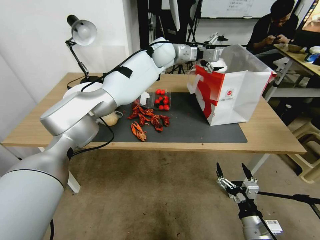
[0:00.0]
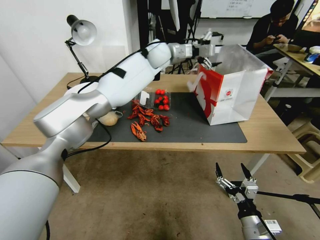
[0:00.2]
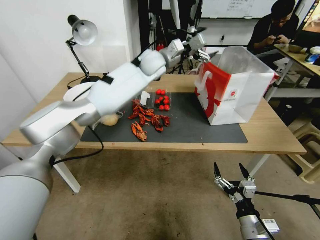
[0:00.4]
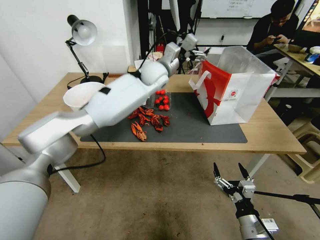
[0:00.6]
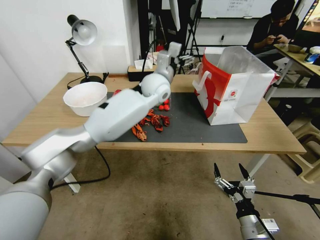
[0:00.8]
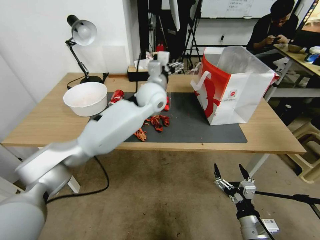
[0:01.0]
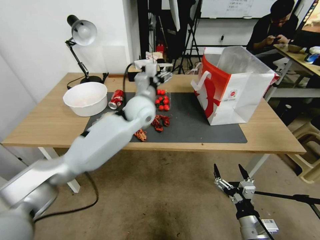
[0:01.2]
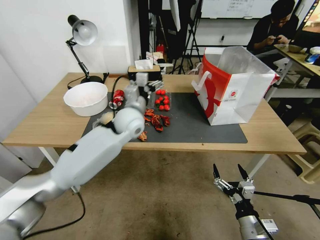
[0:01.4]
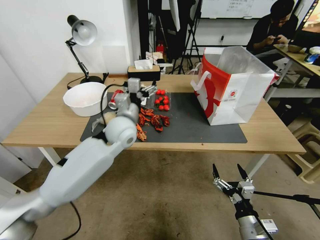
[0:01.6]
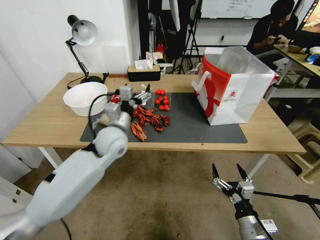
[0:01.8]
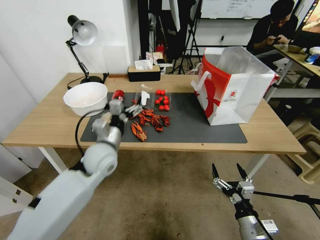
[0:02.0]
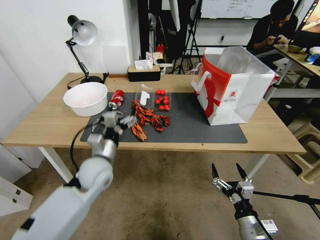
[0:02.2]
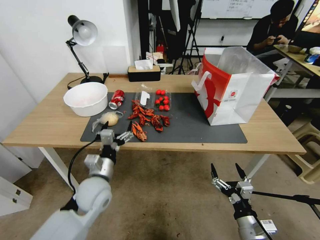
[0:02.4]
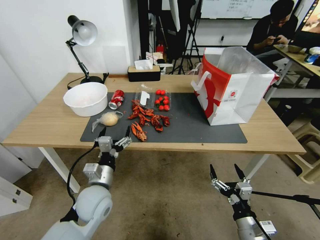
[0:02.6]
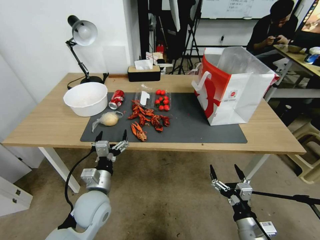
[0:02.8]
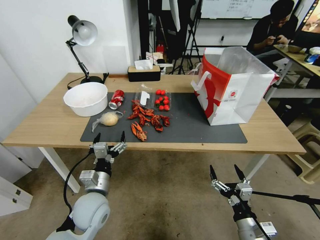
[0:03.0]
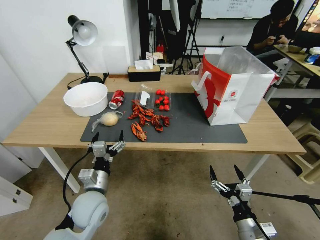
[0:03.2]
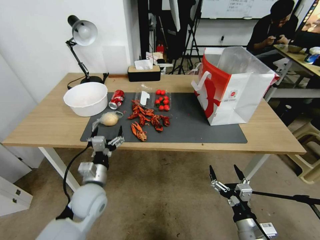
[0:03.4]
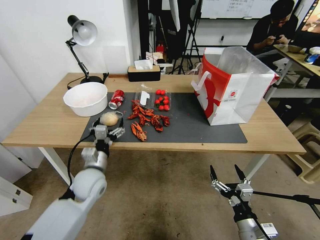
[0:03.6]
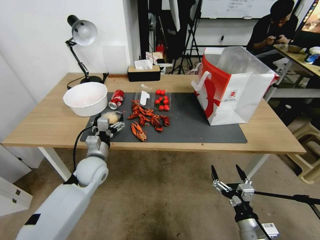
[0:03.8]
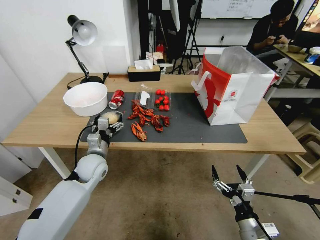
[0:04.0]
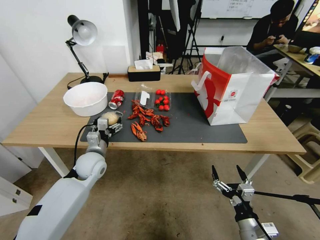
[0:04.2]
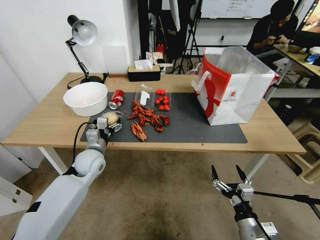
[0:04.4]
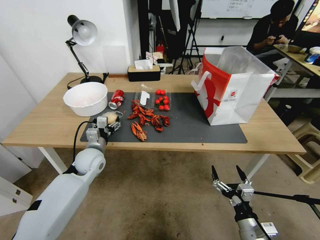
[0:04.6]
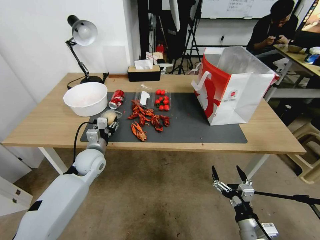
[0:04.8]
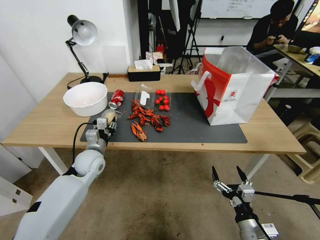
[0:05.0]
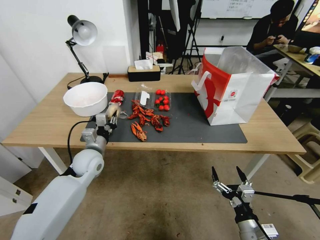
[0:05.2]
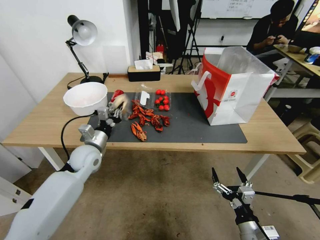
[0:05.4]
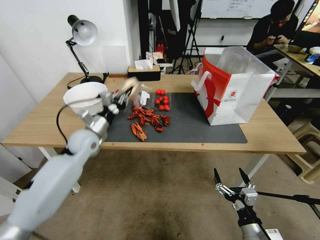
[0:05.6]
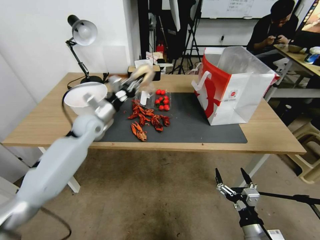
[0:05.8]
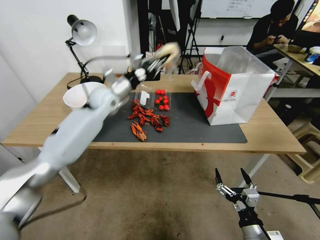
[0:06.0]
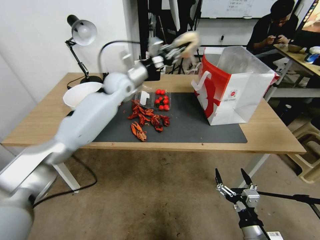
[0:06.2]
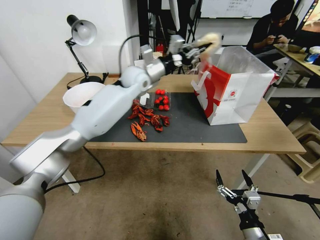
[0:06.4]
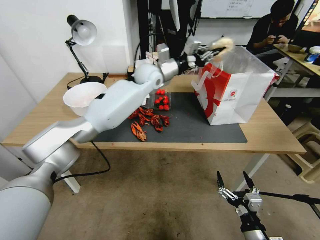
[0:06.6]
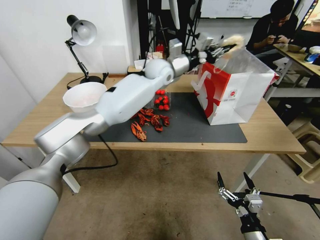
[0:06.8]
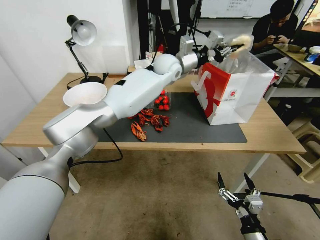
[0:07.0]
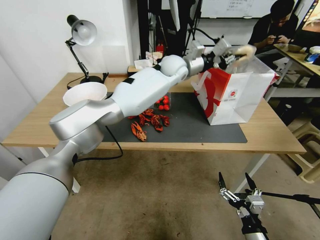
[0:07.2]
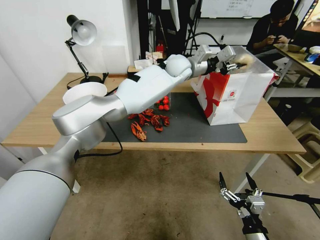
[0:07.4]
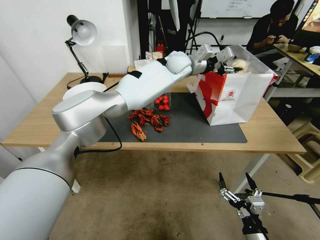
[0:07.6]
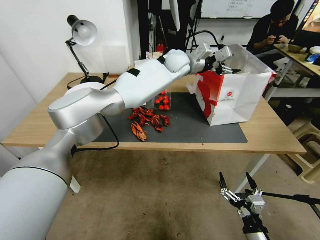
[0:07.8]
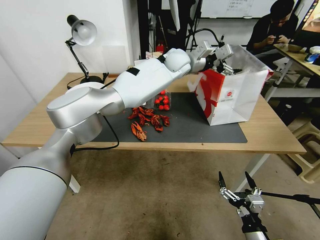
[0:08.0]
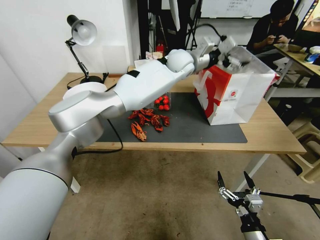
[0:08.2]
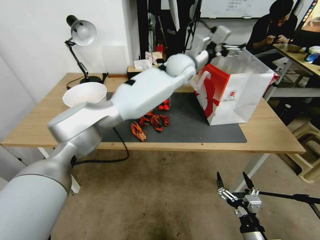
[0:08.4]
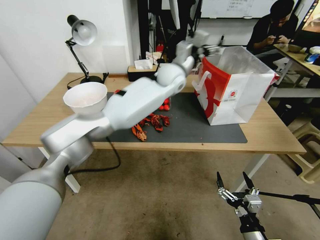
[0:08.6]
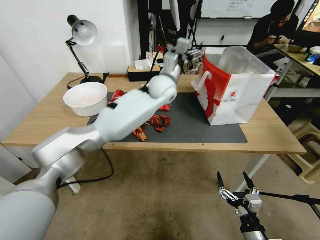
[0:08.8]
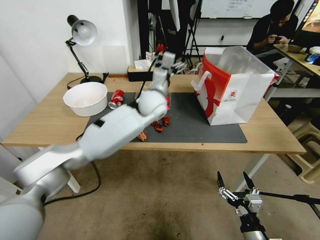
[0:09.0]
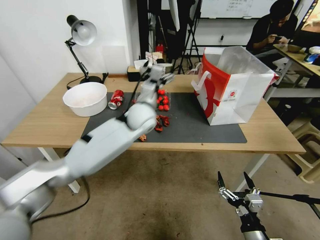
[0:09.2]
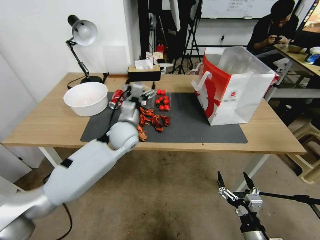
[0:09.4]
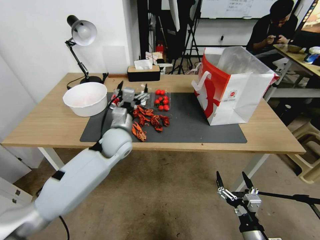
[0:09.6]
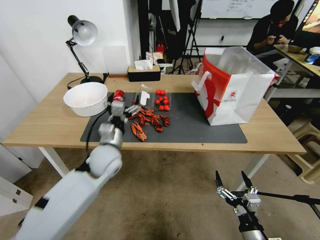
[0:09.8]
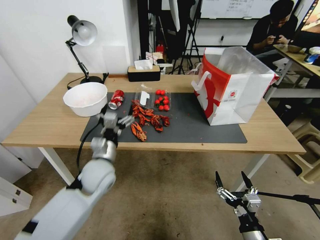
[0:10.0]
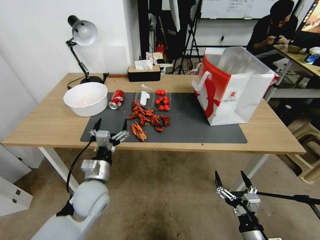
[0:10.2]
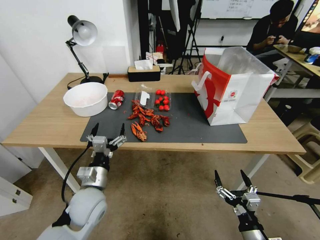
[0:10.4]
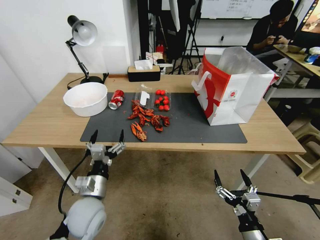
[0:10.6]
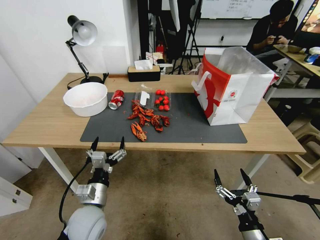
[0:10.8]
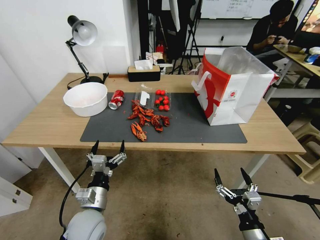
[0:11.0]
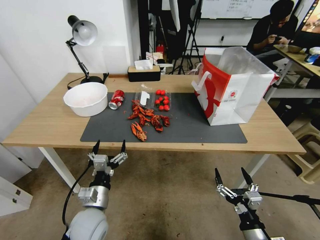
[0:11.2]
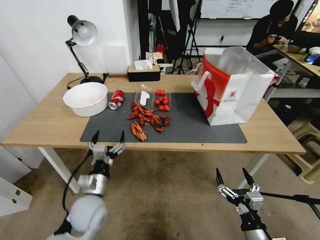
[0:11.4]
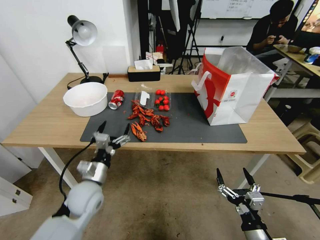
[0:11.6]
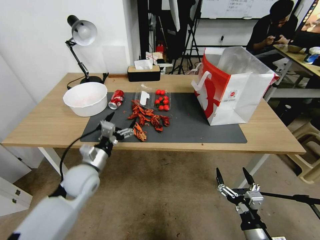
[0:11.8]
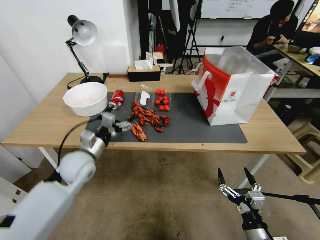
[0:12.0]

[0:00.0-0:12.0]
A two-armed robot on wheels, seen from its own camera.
0:00.0 to 0:01.6: The left gripper travels backward, downward and to the left by about 30 cm.
0:01.6 to 0:03.0: The left gripper goes roughly 25 cm backward, downward and to the left.
0:03.0 to 0:04.4: The left gripper travels forward by roughly 15 cm.
0:04.4 to 0:06.0: The left gripper is displaced upward and forward by about 25 cm, and closes up.
0:06.0 to 0:07.6: The left gripper travels to the right by about 25 cm, and opens up.
0:07.6 to 0:09.0: The left gripper shifts roughly 15 cm backward, to the left and downward, and opens its fingers.
0:09.0 to 0:10.4: The left gripper travels backward, to the left and downward by some 35 cm.
0:10.4 to 0:12.0: The left gripper moves forward and to the left, some 10 cm.

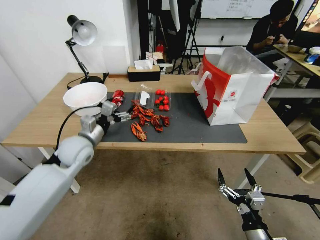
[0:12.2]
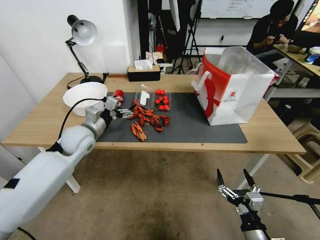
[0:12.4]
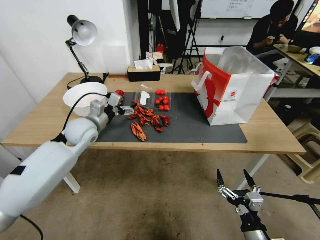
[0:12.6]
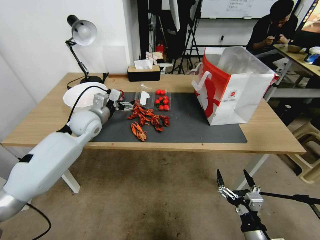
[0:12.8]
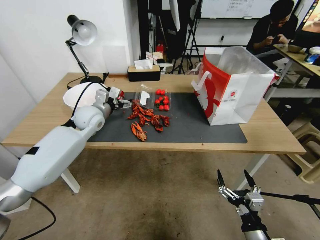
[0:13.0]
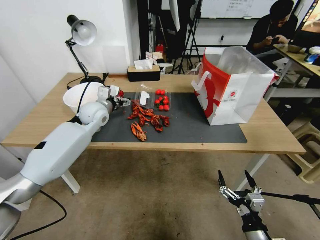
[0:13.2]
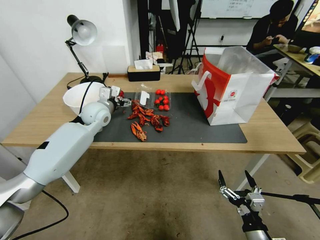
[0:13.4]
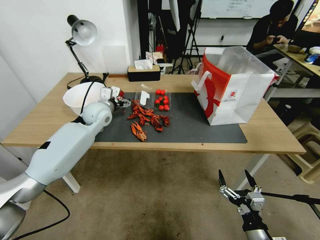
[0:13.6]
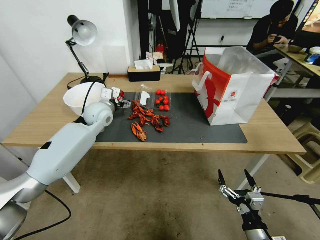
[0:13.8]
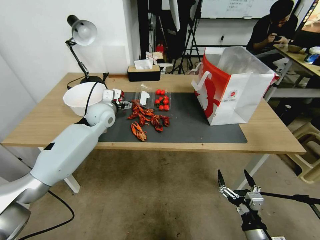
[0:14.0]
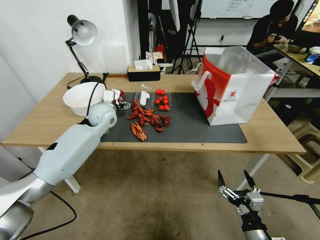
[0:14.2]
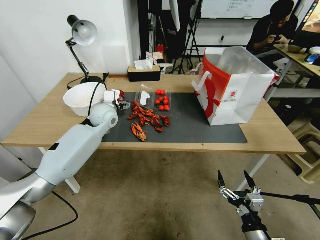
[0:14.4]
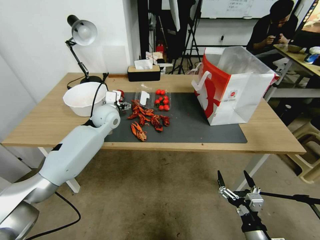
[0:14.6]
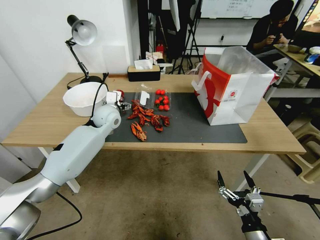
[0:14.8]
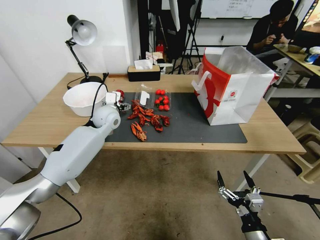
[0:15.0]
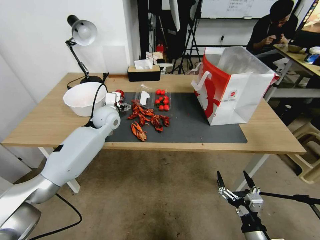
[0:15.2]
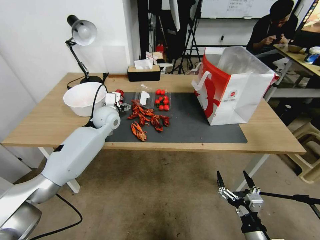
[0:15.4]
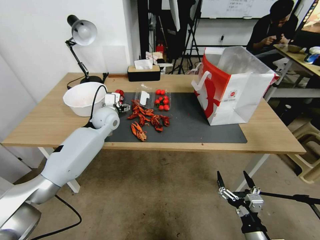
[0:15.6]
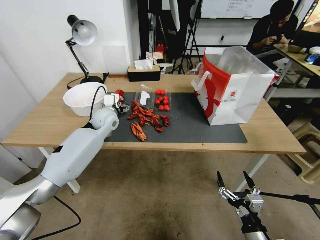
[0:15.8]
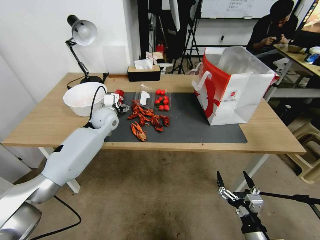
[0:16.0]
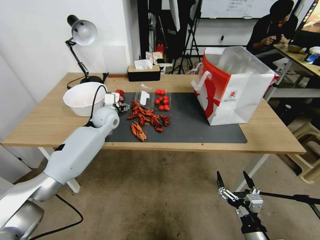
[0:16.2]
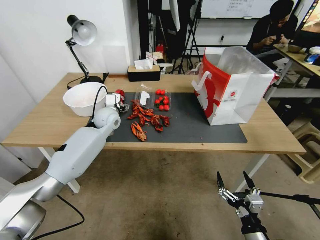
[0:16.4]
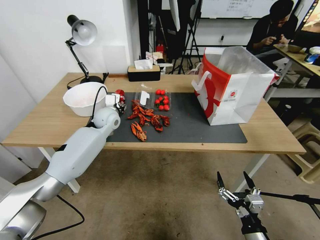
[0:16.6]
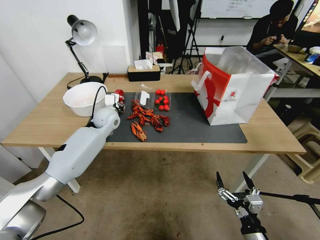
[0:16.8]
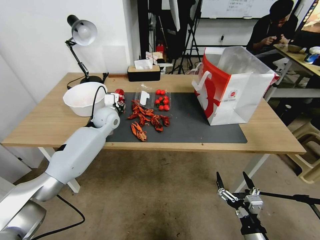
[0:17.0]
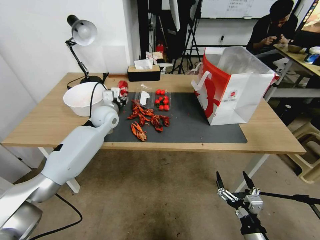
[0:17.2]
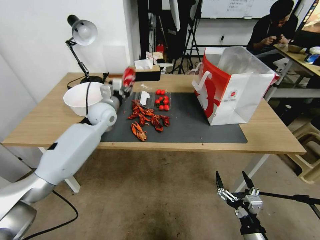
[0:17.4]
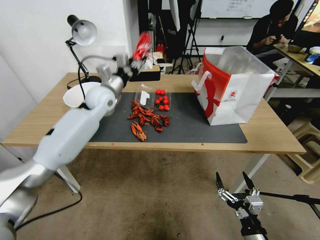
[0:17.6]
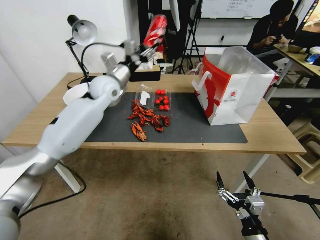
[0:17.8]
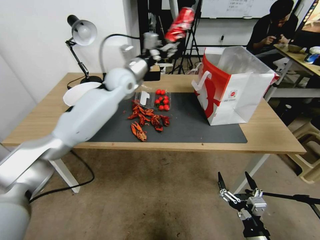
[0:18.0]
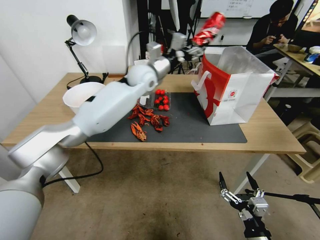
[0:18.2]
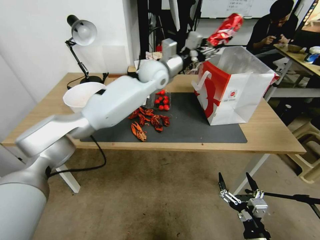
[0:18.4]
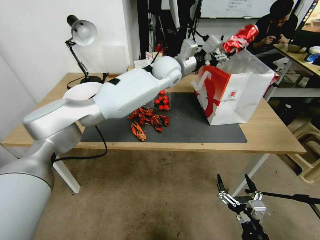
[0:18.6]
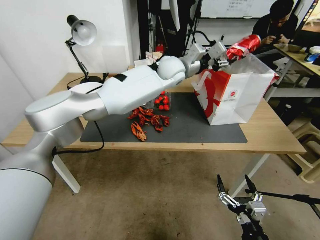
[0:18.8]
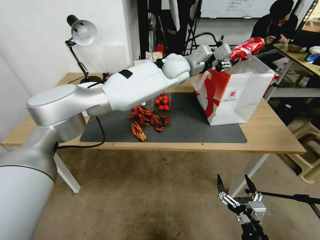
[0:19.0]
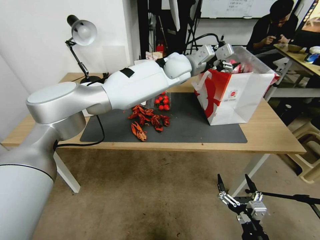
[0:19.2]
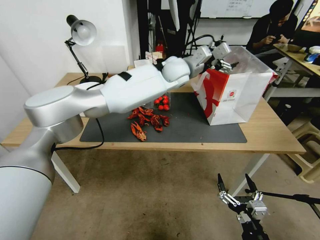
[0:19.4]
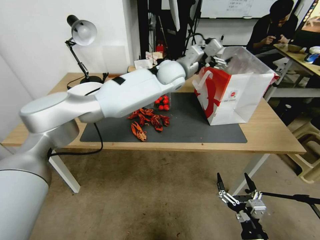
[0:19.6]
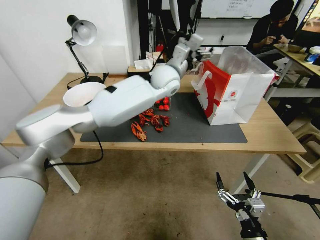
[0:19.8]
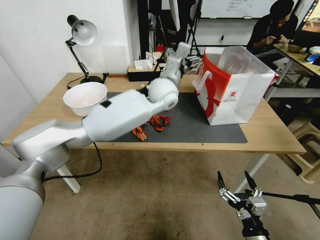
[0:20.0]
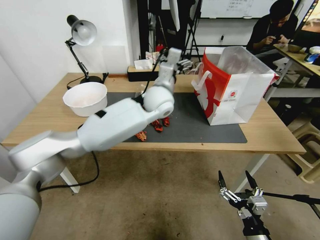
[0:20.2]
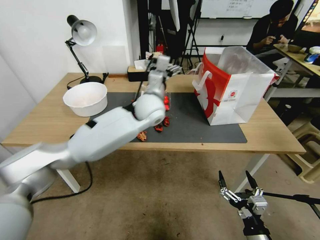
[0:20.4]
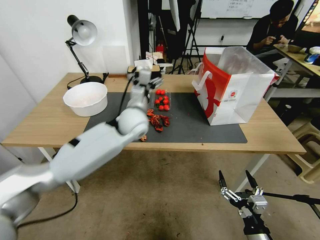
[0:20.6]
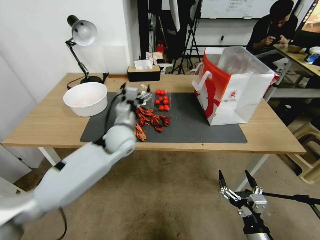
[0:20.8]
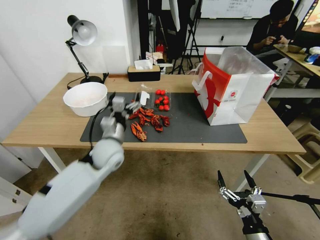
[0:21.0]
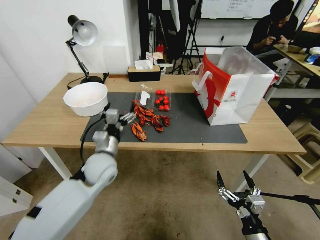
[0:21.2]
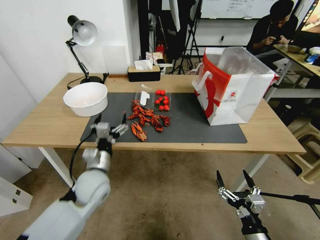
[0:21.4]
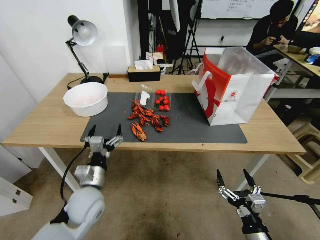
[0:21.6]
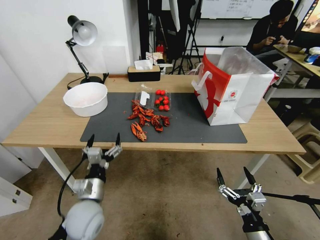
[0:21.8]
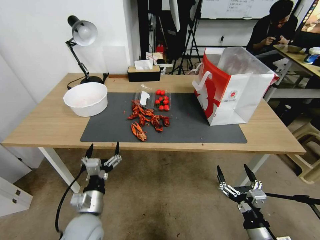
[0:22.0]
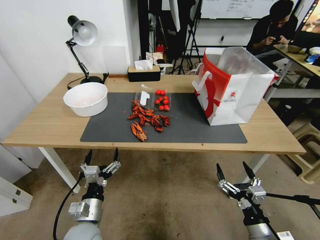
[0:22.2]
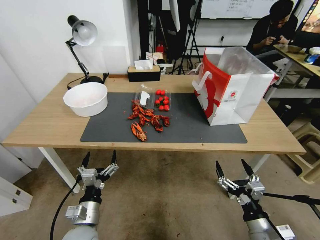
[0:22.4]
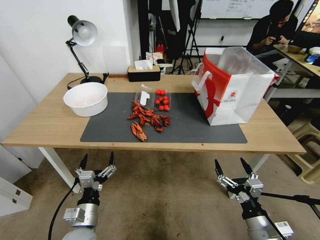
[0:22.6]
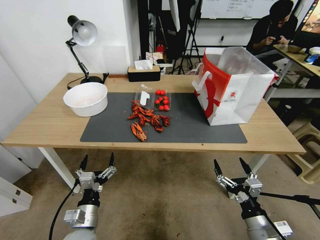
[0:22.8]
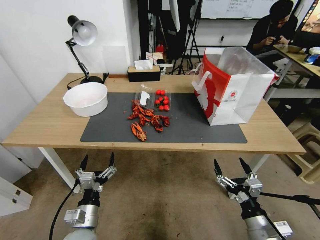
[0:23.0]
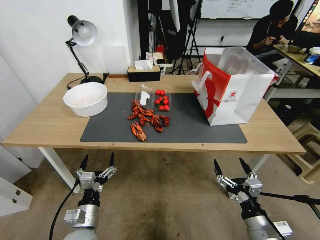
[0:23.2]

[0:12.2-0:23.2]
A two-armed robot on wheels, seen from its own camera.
0:12.2 to 0:13.8: The left gripper is displaced forward by roughly 15 cm.
0:13.8 to 0:15.4: The grippers make only small movements.
0:15.4 to 0:17.0: The left gripper closes.
0:17.0 to 0:18.4: The left gripper shifts approximately 25 cm to the right and upward.
0:18.4 to 0:20.0: The left gripper heads backward, covering some 5 cm, and opens its fingers.
0:20.0 to 0:21.6: The left gripper is displaced backward, to the left and downward by roughly 40 cm.
0:21.6 to 0:23.2: The left gripper is displaced backward and downward by some 10 cm.
